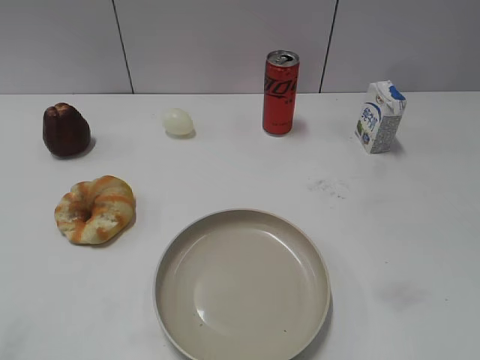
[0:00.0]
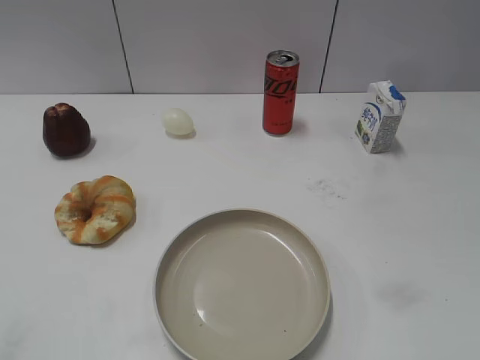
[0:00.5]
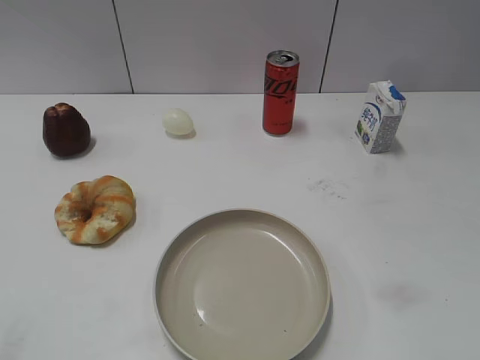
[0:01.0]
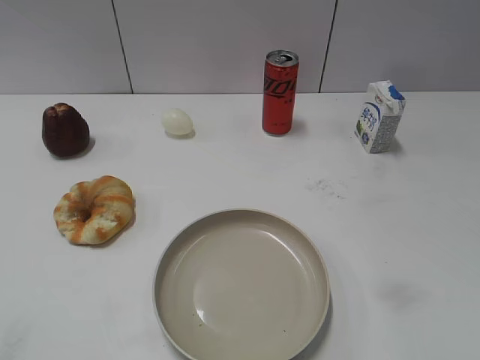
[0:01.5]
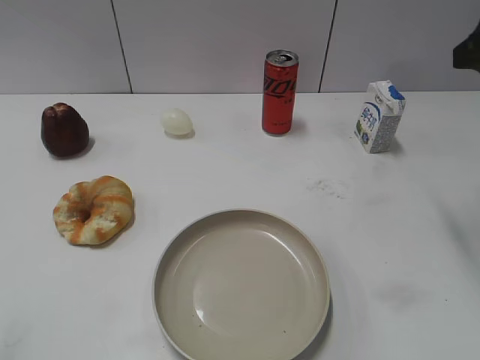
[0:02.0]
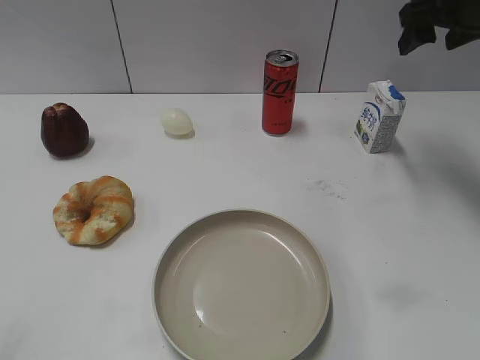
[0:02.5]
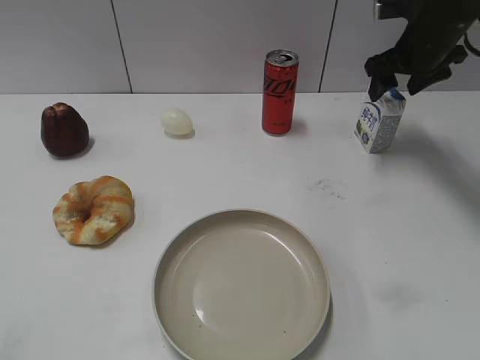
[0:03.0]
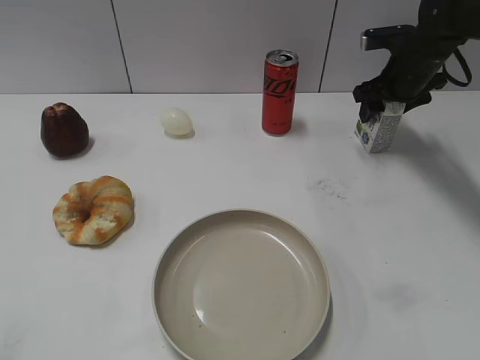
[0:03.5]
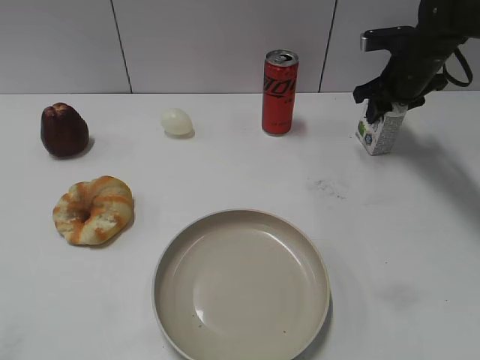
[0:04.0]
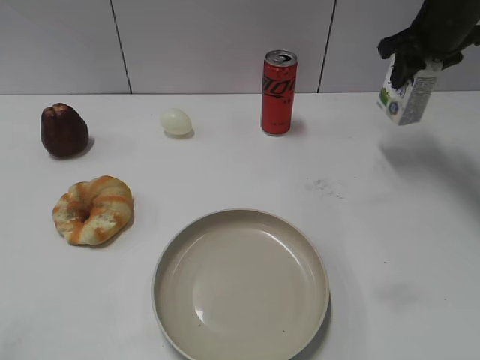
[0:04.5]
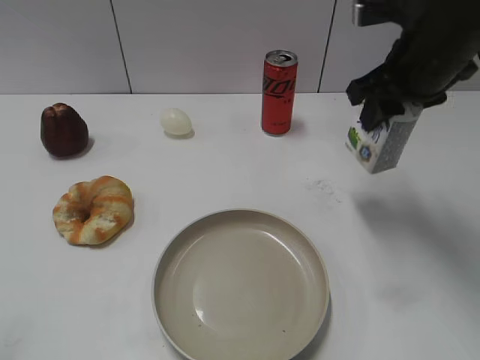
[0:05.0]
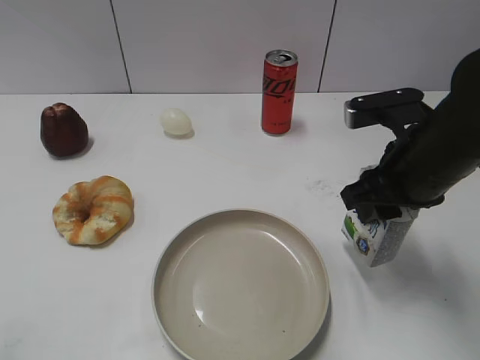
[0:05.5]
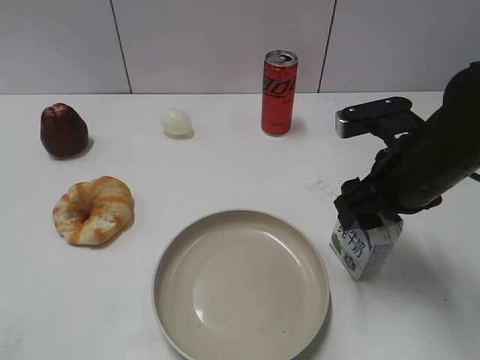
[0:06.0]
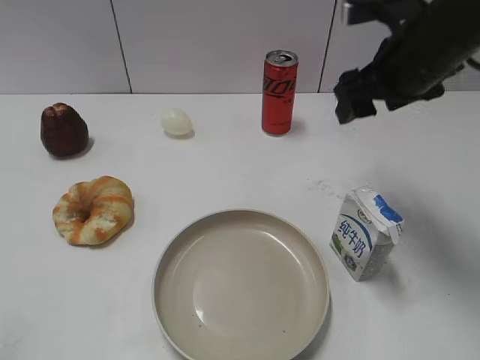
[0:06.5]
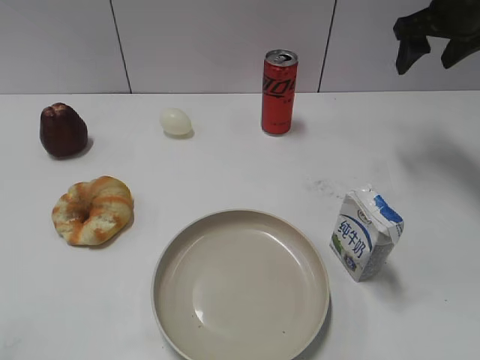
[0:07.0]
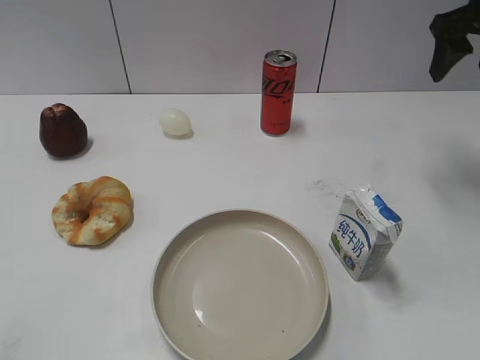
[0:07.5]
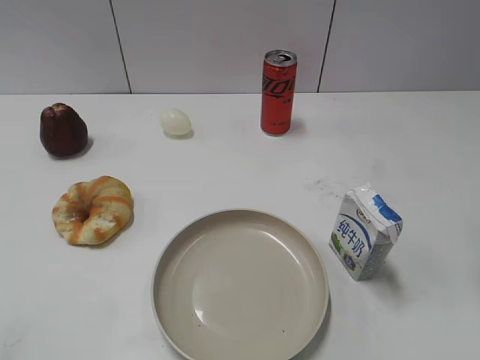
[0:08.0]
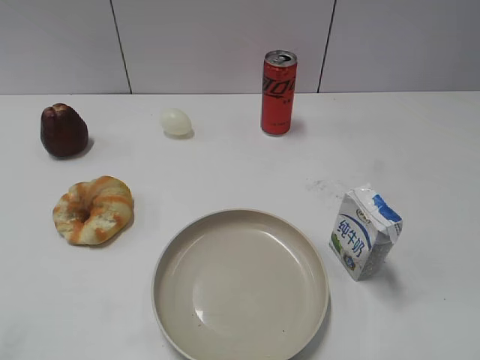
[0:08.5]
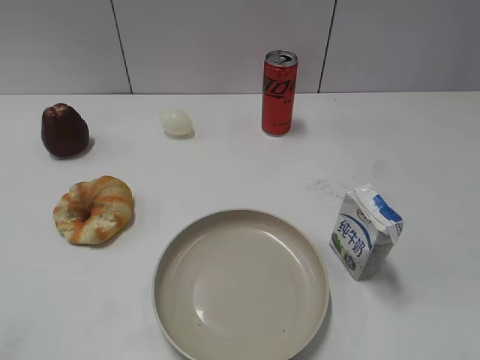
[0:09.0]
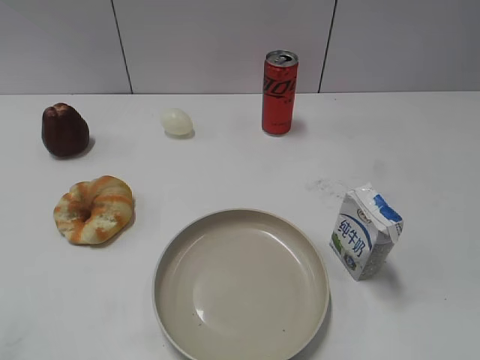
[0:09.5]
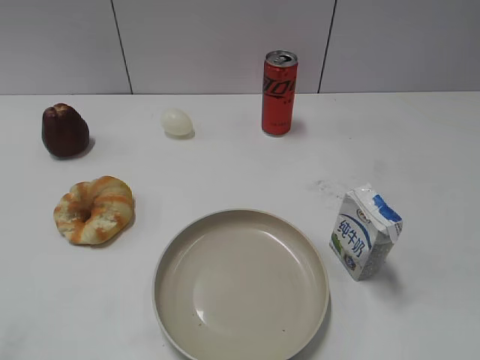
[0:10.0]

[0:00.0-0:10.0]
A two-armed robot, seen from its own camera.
Step, 0:01.0 to 0:04.0: Grasp the milk with right gripper.
Step, 0:04.5 to 0:06.0: Place the milk on the table with right gripper.
0:02.0 to 0:04.0: The right gripper moves forward and downward, about 25 cm, and closes up.
0:04.0 to 0:06.0: The right gripper heads backward, covering about 25 cm, and opens up.
0:06.0 to 0:08.0: The right gripper is displaced to the right and upward by roughly 15 cm, and moves approximately 20 cm forward and comes back.

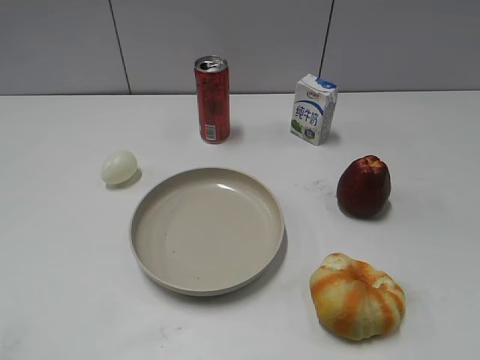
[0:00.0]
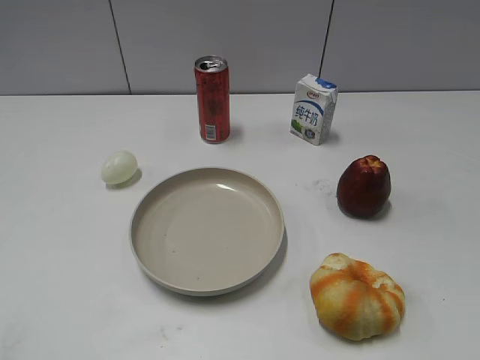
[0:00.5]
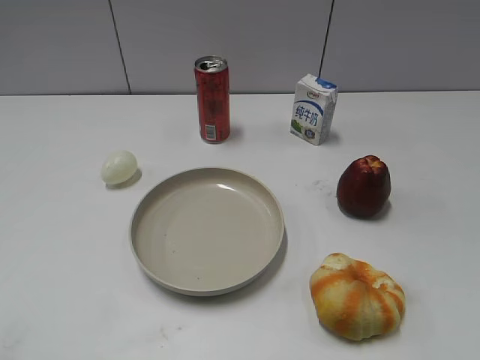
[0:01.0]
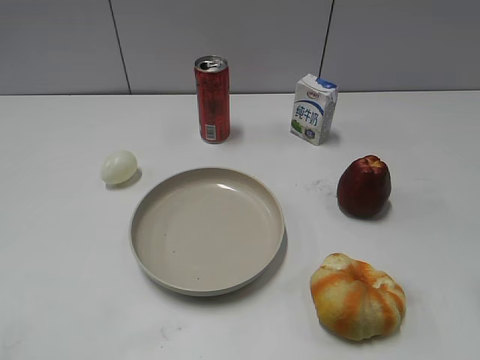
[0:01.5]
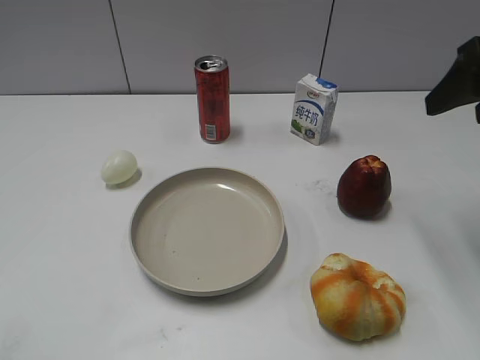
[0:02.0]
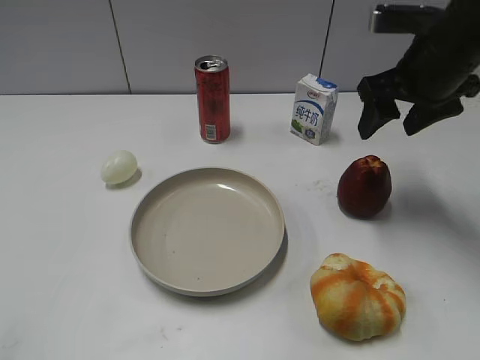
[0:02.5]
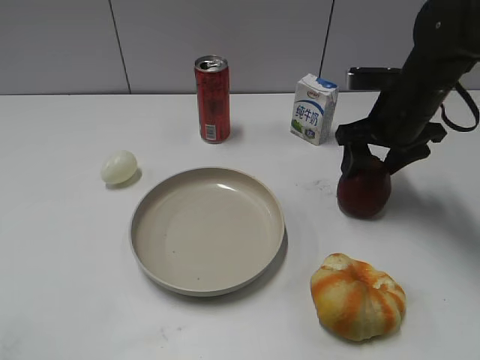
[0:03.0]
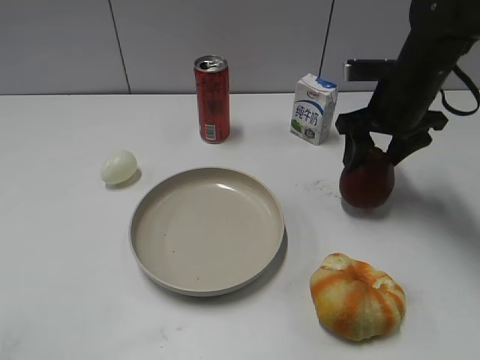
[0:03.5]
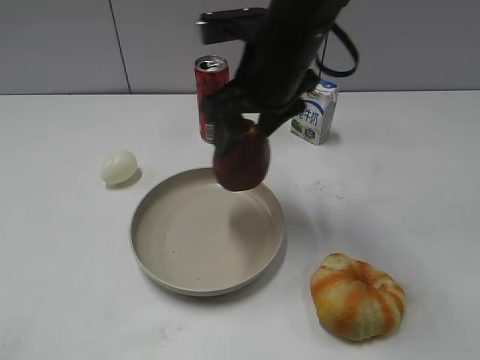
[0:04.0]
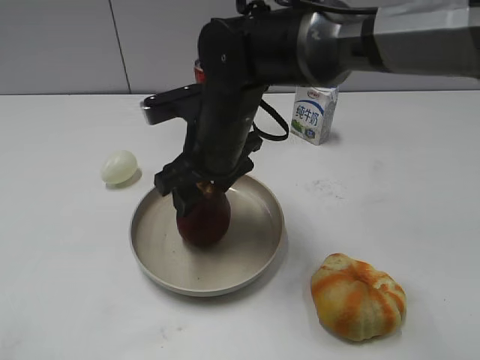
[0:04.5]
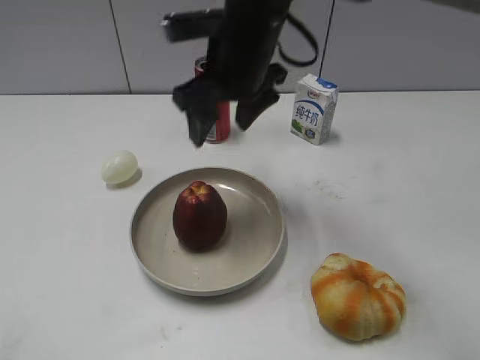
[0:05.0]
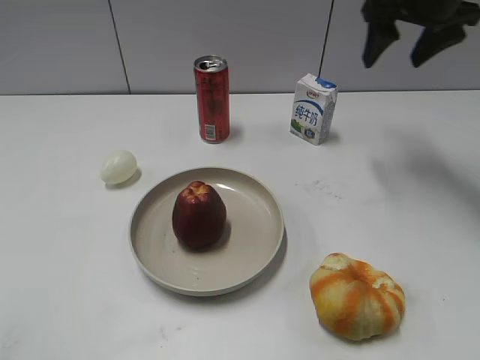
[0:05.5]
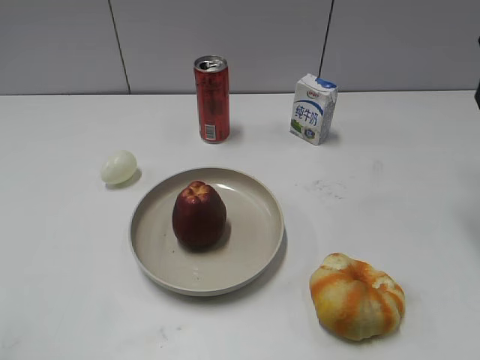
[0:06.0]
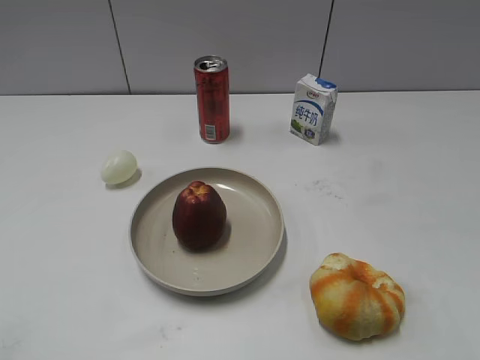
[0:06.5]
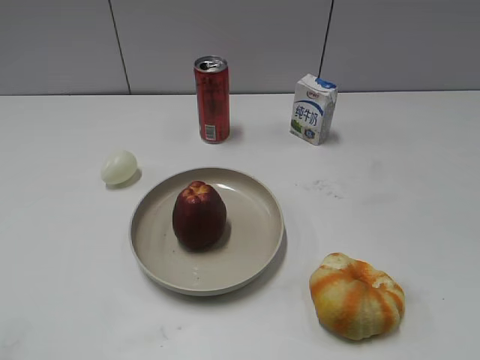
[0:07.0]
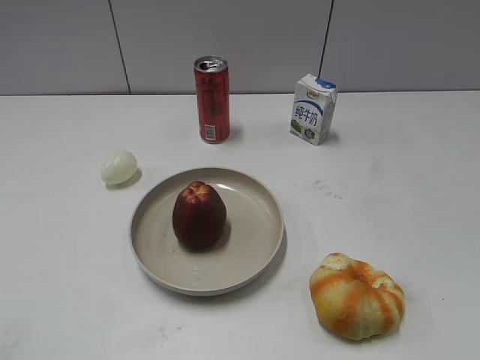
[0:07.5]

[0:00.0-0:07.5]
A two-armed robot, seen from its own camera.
Step, 0:01.0 to 0:03.0: Grasp the apple with right gripper.
Step, 0:03.5 to 0:04.5: Place the apple on the plate with right gripper.
0:02.0 to 0:04.0: The right gripper shifts about 25 cm to the left.
0:04.0 to 0:05.5: The right gripper travels to the right and forward by roughly 20 cm.
0:05.5 to 0:07.5: The right gripper moves backward, roughly 40 cm.
